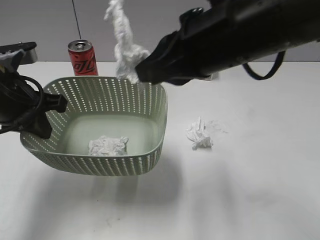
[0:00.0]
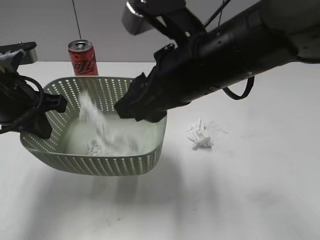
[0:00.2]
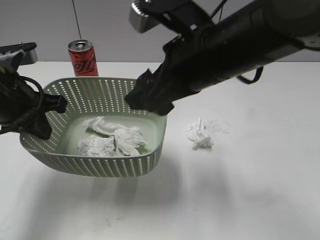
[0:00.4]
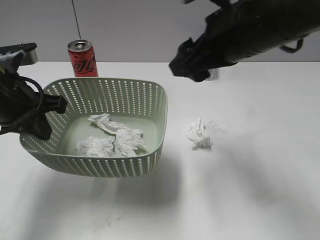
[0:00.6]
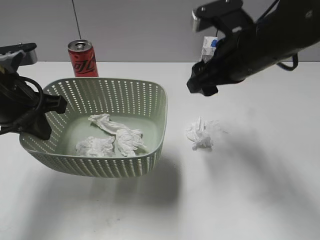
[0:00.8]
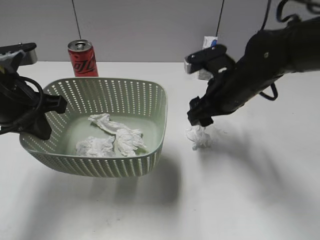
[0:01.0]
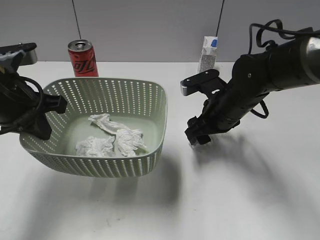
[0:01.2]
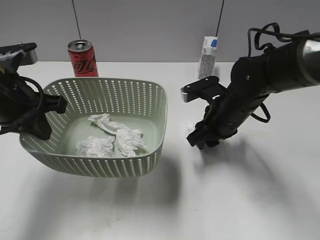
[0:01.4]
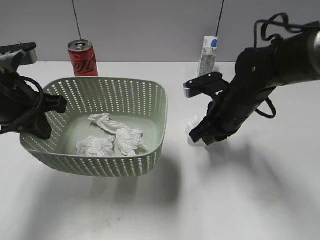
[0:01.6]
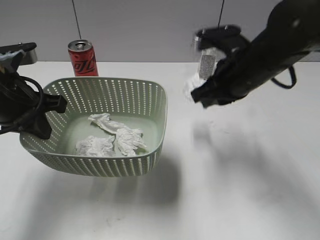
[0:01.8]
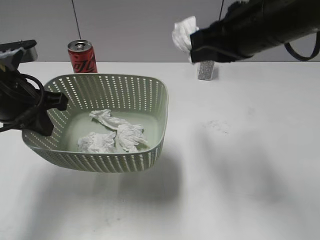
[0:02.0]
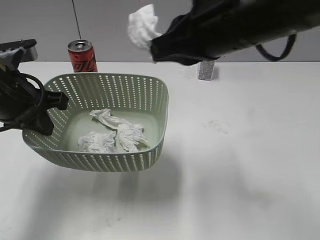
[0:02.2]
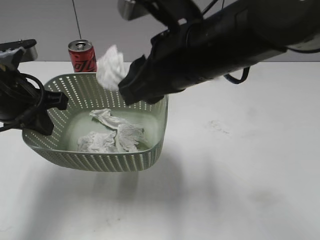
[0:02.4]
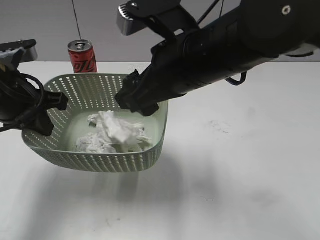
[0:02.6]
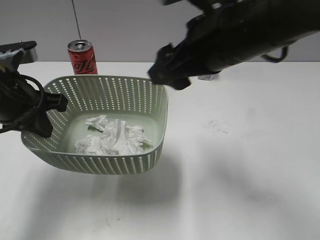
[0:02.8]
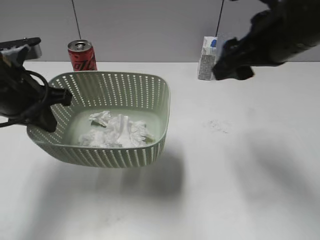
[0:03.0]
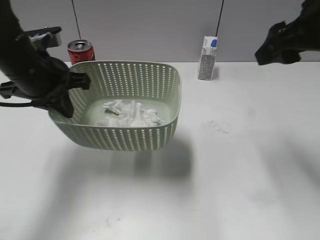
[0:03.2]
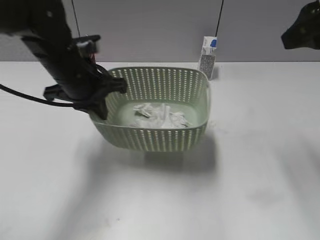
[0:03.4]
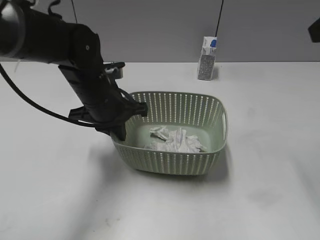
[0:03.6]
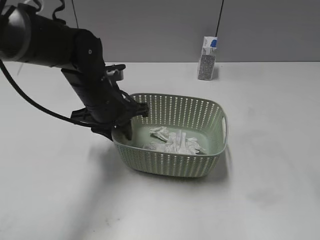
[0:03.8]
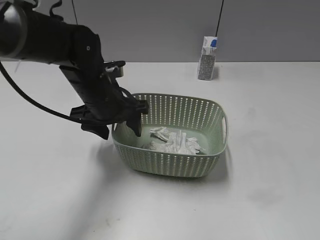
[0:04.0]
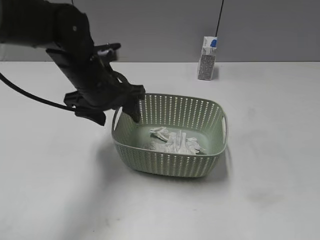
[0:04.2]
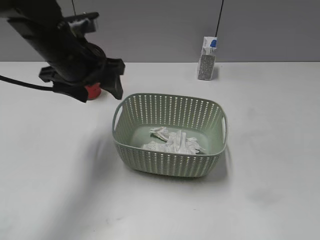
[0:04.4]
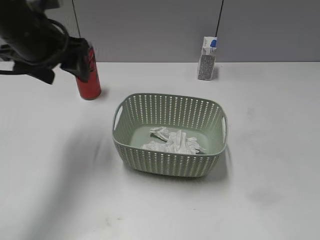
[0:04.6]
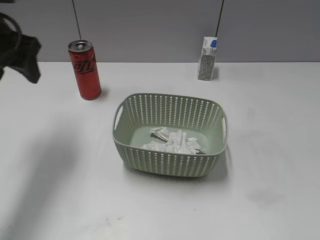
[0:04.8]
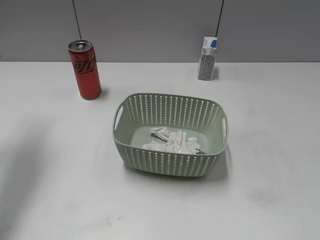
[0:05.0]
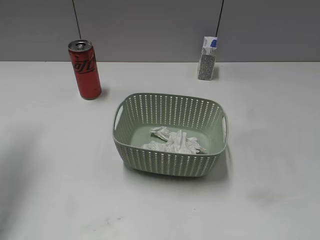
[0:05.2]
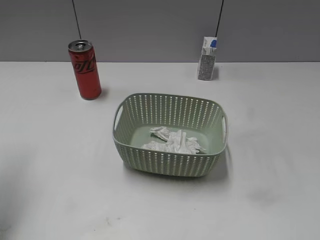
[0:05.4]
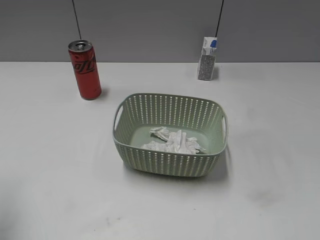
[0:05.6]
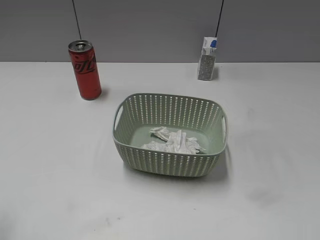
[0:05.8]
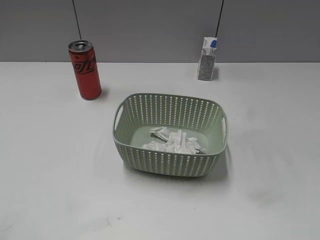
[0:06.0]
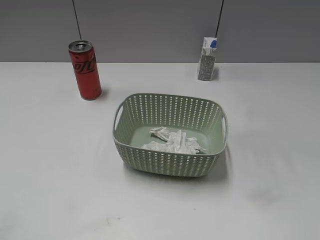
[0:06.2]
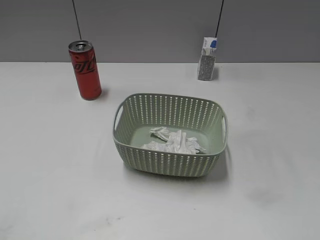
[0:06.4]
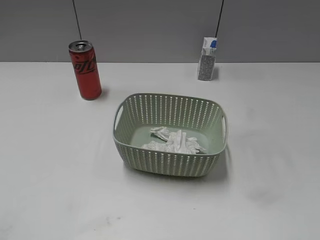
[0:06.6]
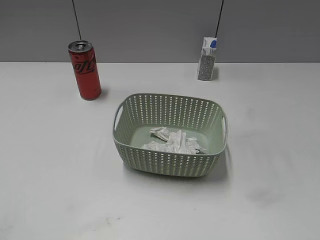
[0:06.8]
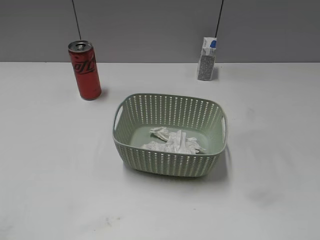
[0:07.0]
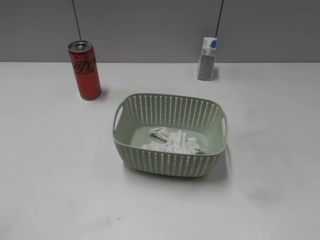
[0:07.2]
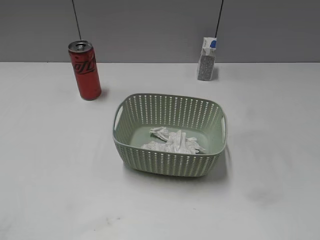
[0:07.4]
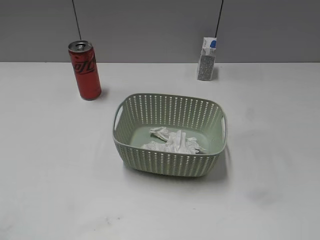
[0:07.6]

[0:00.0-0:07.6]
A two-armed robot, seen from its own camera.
Step, 0:00.6 to 0:01.8: Grasp the waste paper with right gripper.
Step, 0:02.0 to 0:02.6: Place the waste paper in the basket with right gripper.
Step, 0:02.8 to 0:04.0: Place the basket on the table with left gripper.
0:00.0 to 0:01.6: The right gripper shifts roughly 20 cm downward and forward, and opens, then closes once more.
0:01.6 to 0:03.0: The right gripper goes approximately 15 cm upward, and opens its fingers.
0:03.0 to 0:04.6: The left gripper heads forward, covering roughly 5 cm, and opens up, while the right gripper shifts about 25 cm backward and to the right.
0:04.6 to 0:06.0: The left gripper moves backward and to the left, some 30 cm.

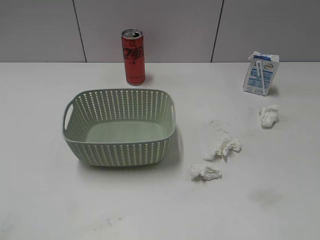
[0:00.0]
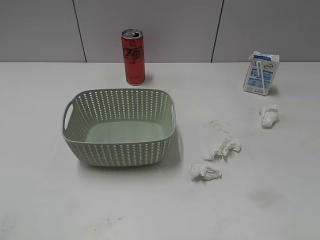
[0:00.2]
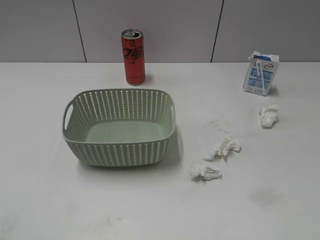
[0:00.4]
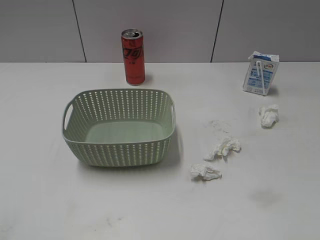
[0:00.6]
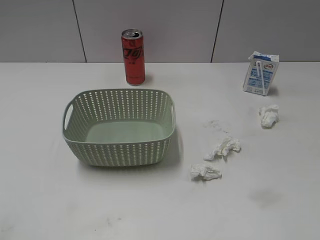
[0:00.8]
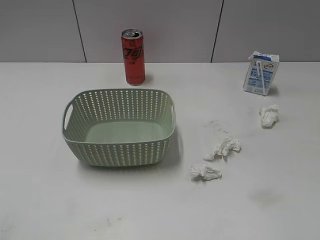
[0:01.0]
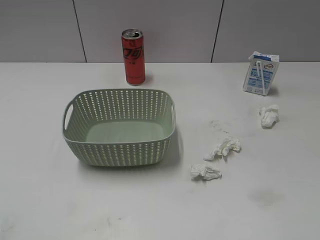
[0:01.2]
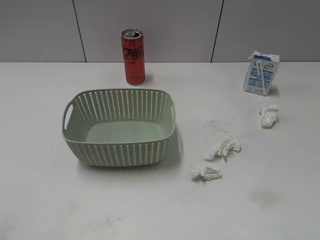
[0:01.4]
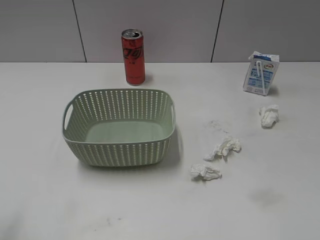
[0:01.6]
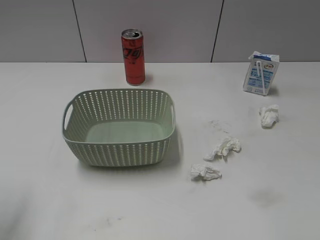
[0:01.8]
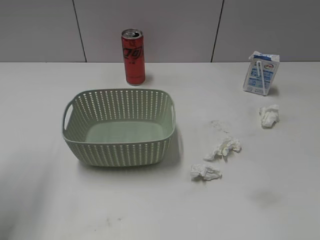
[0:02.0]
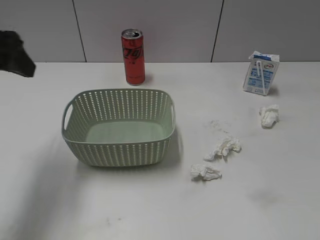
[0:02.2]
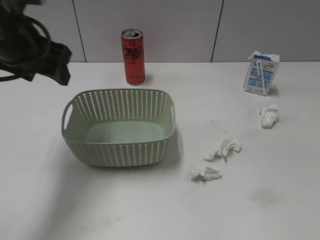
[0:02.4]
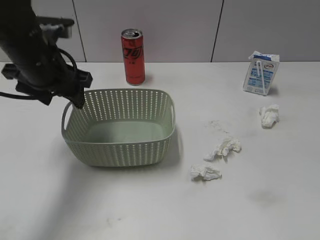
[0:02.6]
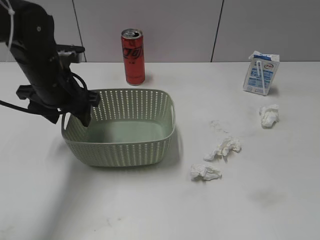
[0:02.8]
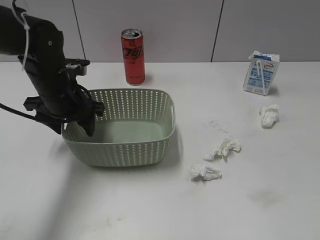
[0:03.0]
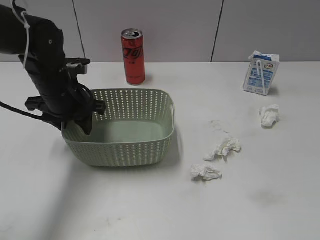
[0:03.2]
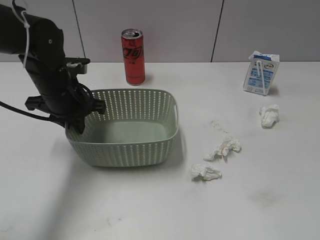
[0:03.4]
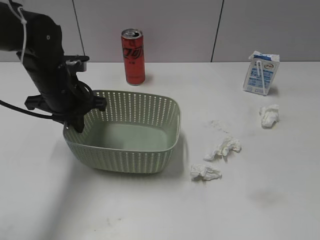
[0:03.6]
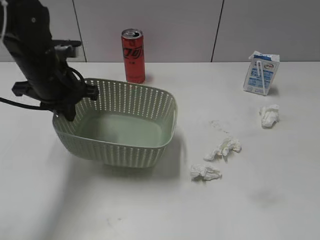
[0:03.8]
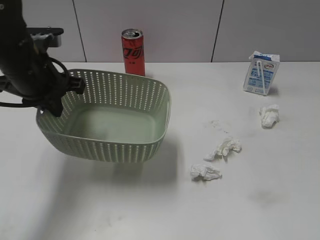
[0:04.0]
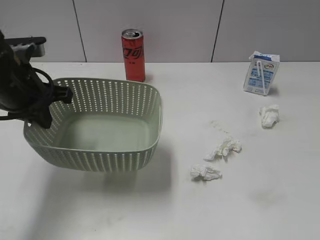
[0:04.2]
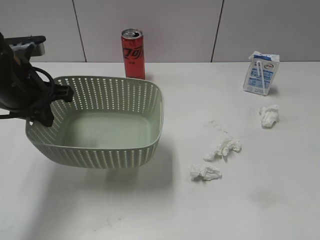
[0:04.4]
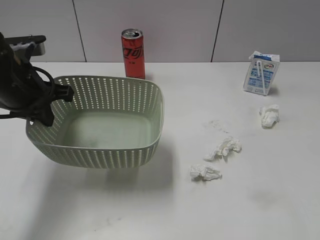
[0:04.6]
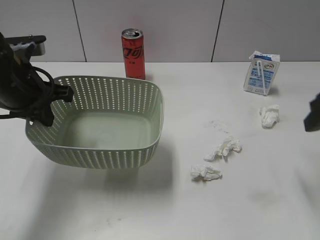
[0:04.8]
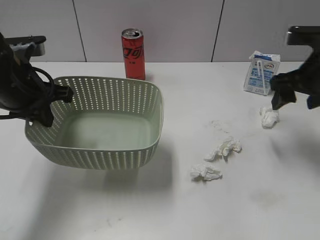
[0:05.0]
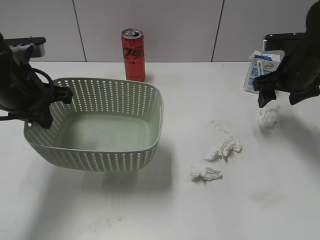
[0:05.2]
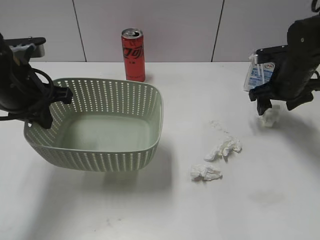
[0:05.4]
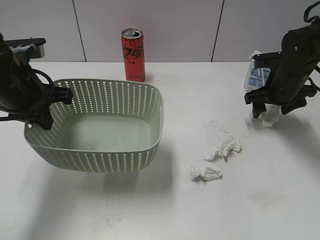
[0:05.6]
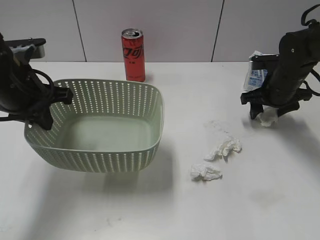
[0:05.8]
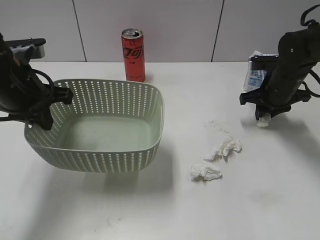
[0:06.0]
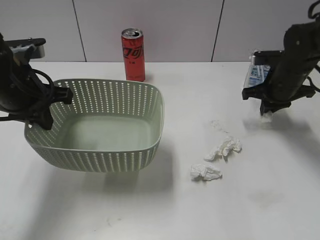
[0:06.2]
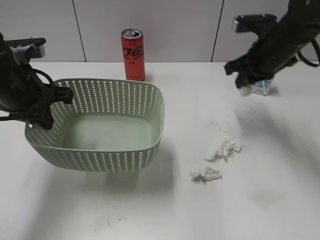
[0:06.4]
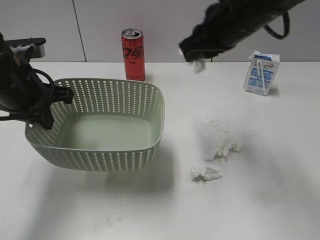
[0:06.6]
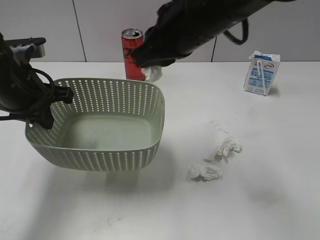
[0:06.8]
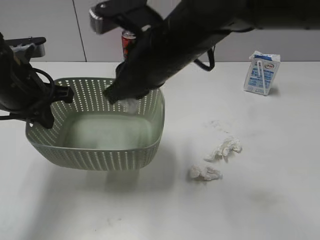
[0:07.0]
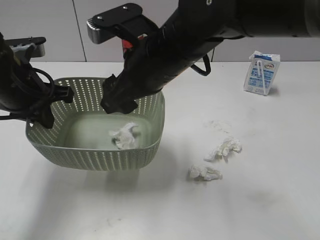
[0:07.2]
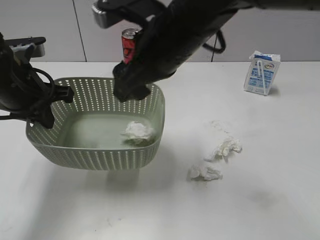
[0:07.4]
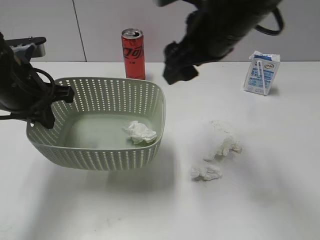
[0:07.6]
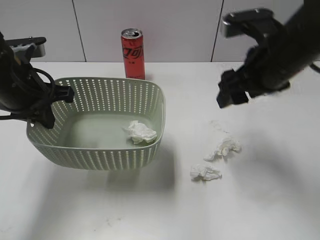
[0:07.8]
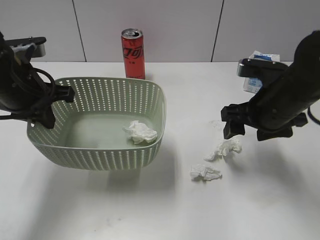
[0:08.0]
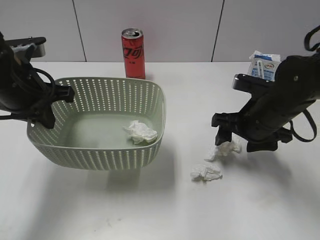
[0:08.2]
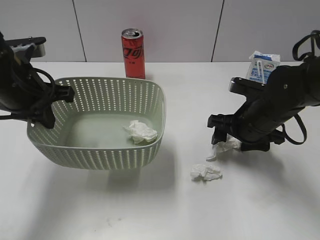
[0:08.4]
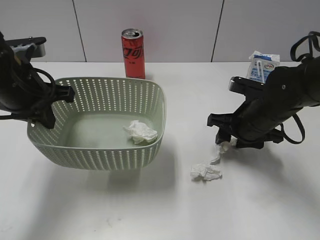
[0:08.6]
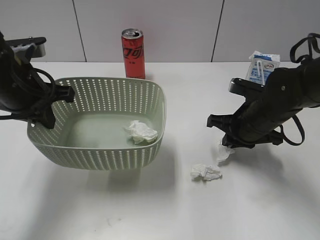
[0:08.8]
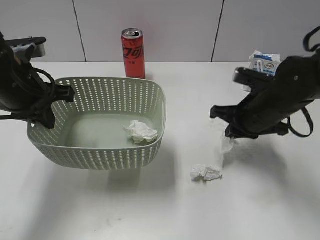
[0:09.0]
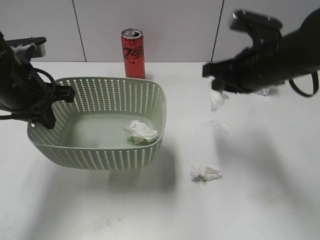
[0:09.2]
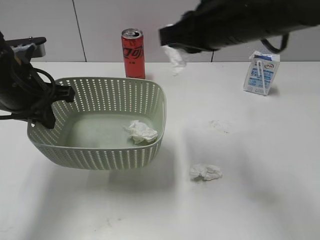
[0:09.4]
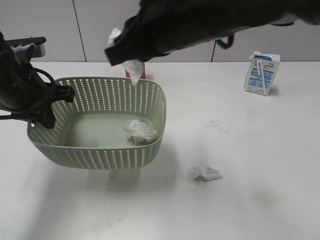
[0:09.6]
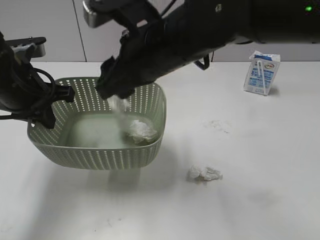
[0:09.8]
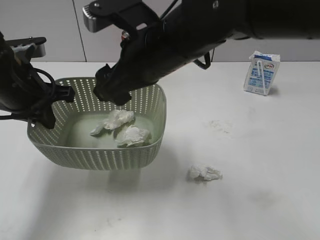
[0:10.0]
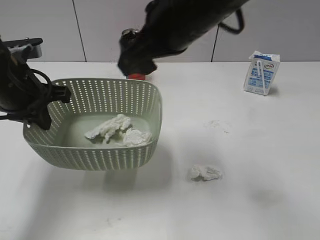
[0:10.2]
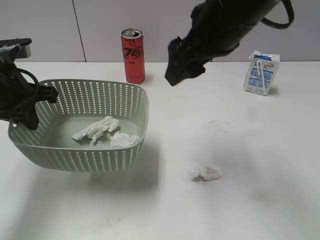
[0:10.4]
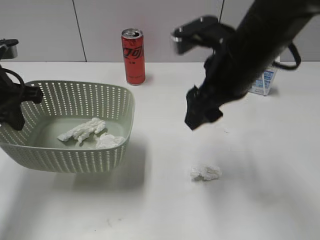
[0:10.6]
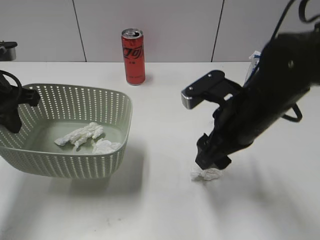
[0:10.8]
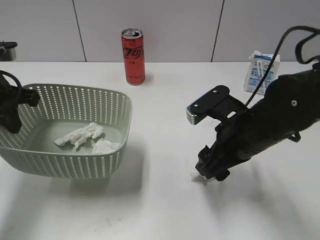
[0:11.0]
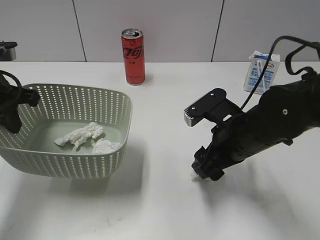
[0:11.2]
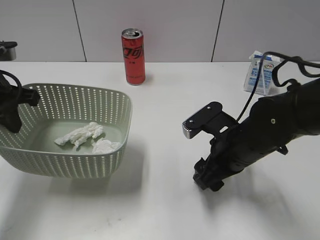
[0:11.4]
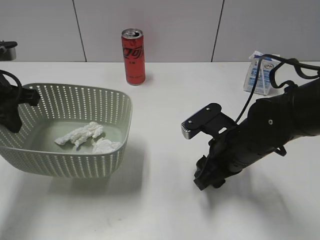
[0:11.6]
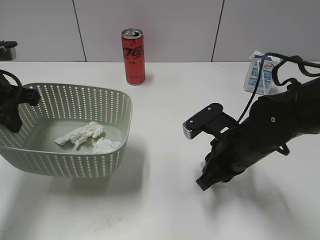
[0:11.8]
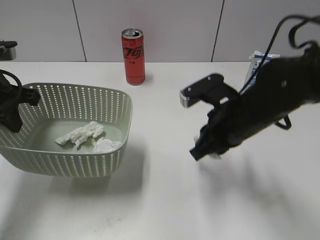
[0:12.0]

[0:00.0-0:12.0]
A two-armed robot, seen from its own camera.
Step, 0:02.0 to 0:03.8: Grasp the basket with left gripper.
Step, 0:04.0 to 0:04.6: Lift the basket with left gripper.
Step, 0:04.8 to 0:06.2: Grasp the waste paper with right gripper.
Step, 0:06.4 to 0:07.4: Place the waste paper in the basket with right gripper.
Step, 0:07.6 to 0:08.8: Grasp the waste paper with right gripper.
Step, 0:09.0 to 0:10.0: Place the waste paper in the basket with right gripper.
Step, 0:10.2 to 0:11.8: Grasp the waste paper with right gripper.
0:01.6 to 0:03.0: The left gripper goes about 35 cm forward, downward and to the right.
0:03.0 to 0:04.4: The left gripper heads upward and backward, covering some 10 cm, and closes up.
0:04.4 to 0:06.0: The right gripper goes about 40 cm forward and downward, and closes up.
0:06.0 to 0:07.6: The right gripper is displaced upward, to the left and backward by some 25 cm, and opens.
0:07.6 to 0:09.0: The right gripper heads downward and to the right, covering roughly 20 cm, and closes.
0:09.0 to 0:10.4: The right gripper swings up and down, roughly 15 cm each way, with 2 reversals, and opens.
0:10.4 to 0:12.0: The right gripper is displaced downward by approximately 15 cm, and closes.

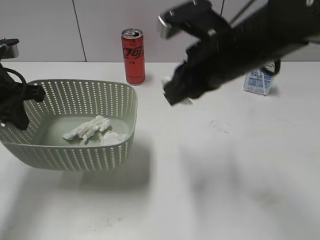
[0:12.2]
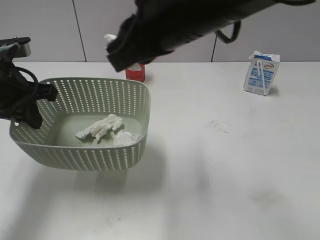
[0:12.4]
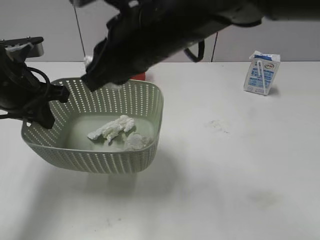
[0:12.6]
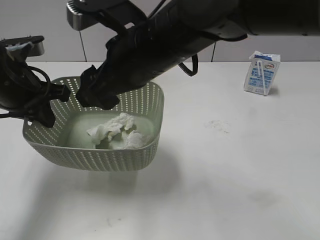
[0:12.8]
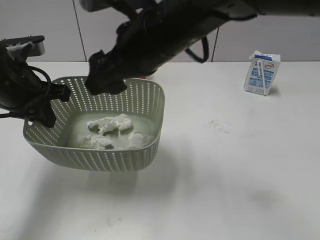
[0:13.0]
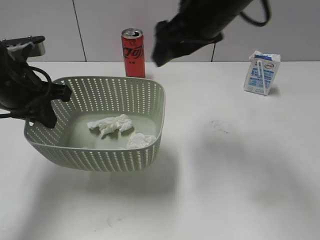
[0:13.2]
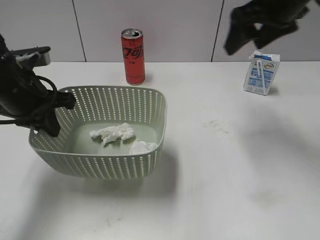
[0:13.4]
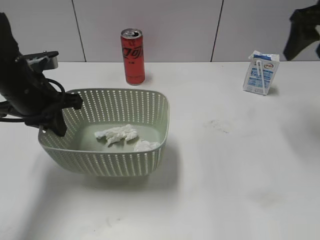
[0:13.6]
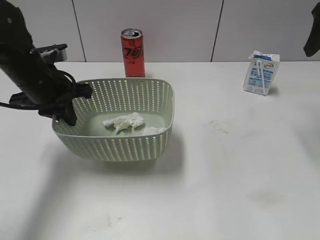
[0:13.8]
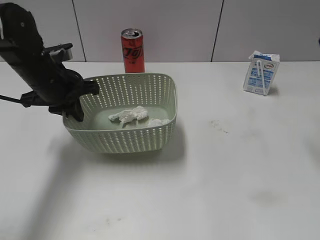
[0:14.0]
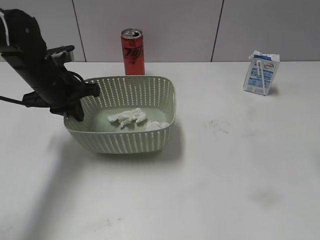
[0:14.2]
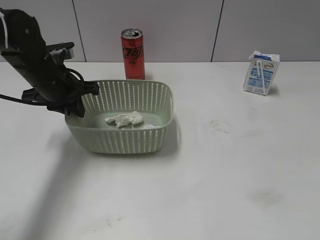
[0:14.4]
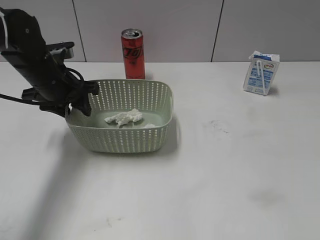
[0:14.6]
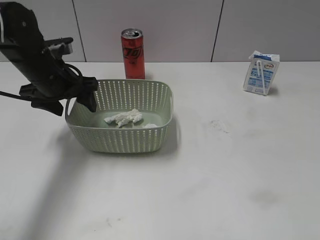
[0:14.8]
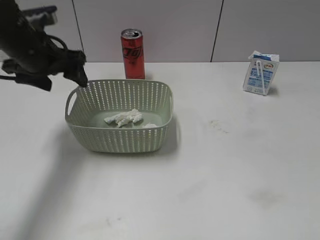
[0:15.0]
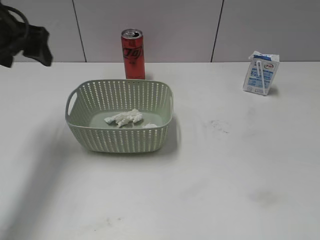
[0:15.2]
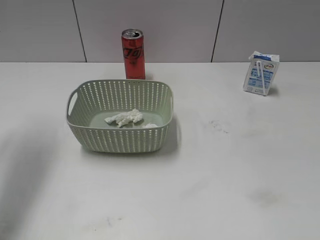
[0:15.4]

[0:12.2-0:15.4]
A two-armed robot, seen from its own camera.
Step, 0:12.2 to 0:13.0: Place the waste paper in the basket with right gripper.
Step, 0:13.2 to 0:14.8: Place the basket on the table with left gripper.
0:12.2 to 0:13.8: The right gripper moves to the right and forward, about 20 cm, and opens. Meanwhile the left gripper moves to the right, some 5 cm.
0:13.8 to 0:15.4: The right gripper travels backward by about 30 cm, while the left gripper shifts about 15 cm upward and to the left, and opens up.
